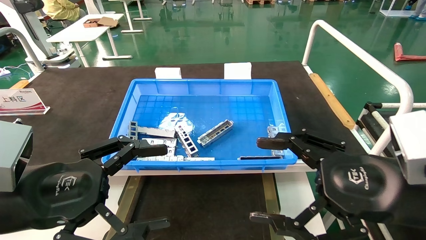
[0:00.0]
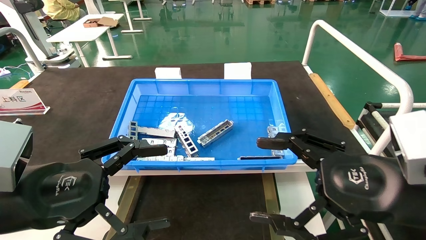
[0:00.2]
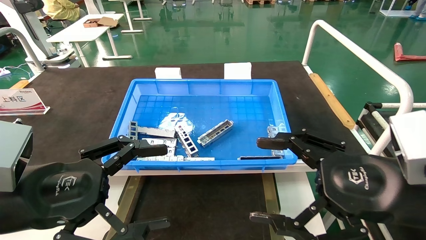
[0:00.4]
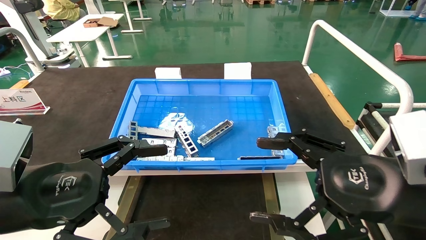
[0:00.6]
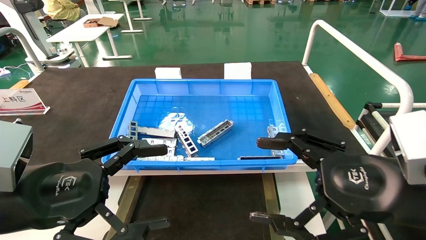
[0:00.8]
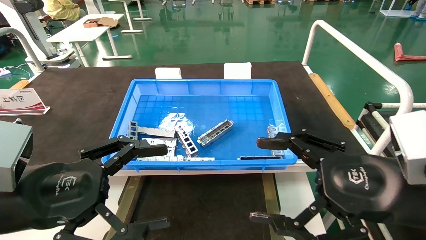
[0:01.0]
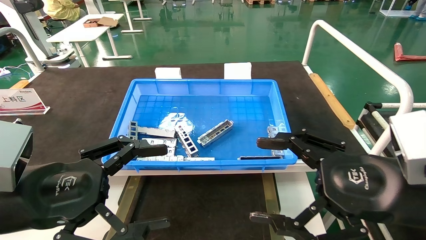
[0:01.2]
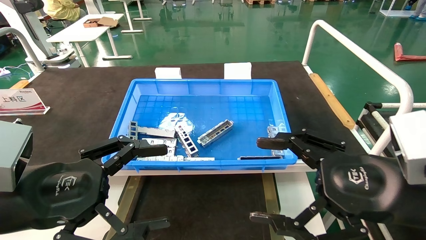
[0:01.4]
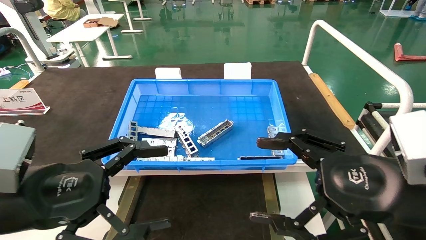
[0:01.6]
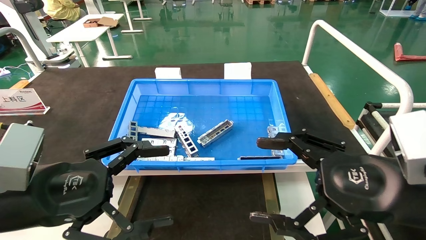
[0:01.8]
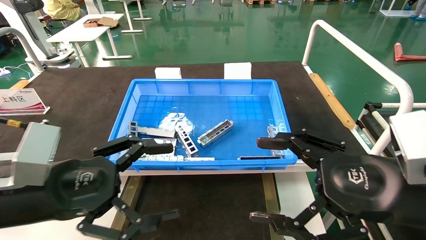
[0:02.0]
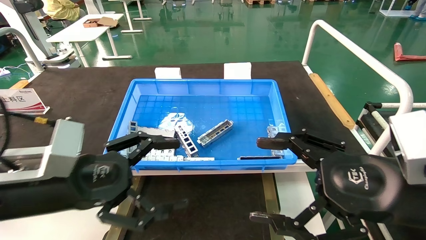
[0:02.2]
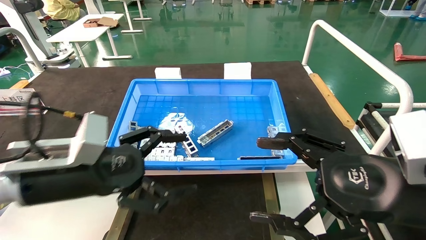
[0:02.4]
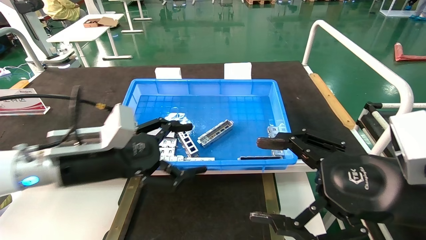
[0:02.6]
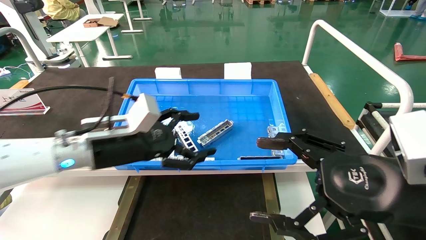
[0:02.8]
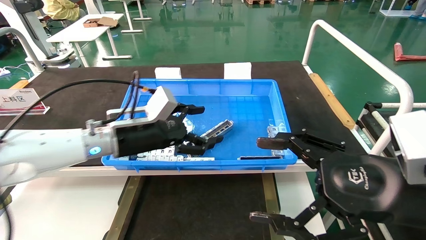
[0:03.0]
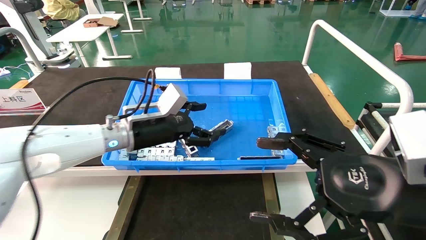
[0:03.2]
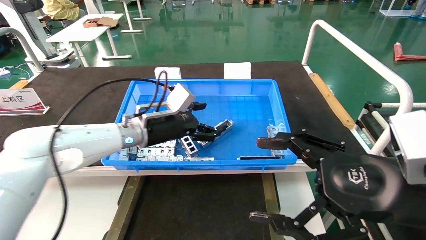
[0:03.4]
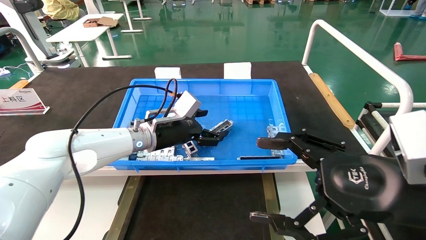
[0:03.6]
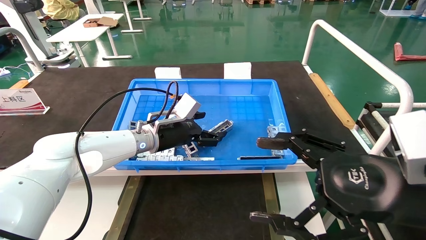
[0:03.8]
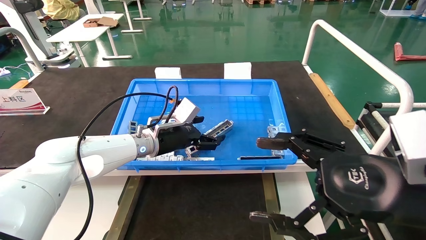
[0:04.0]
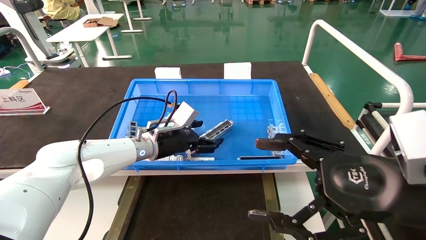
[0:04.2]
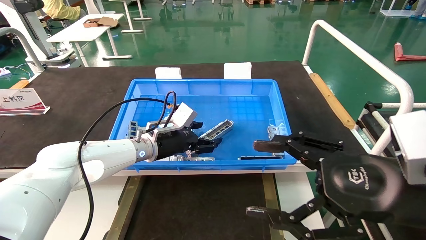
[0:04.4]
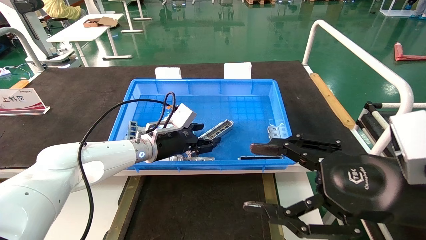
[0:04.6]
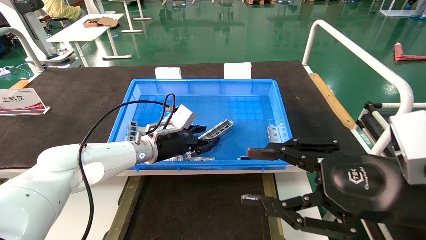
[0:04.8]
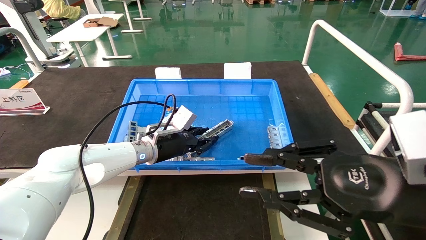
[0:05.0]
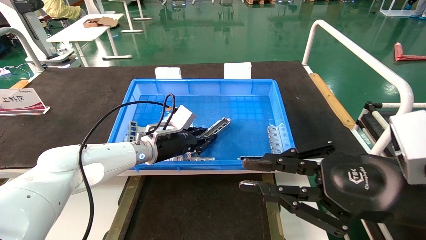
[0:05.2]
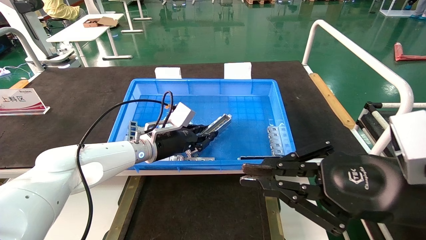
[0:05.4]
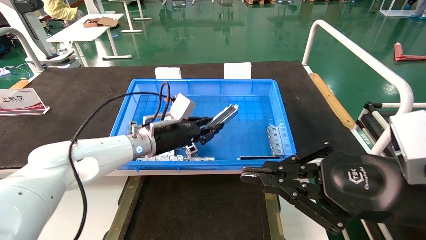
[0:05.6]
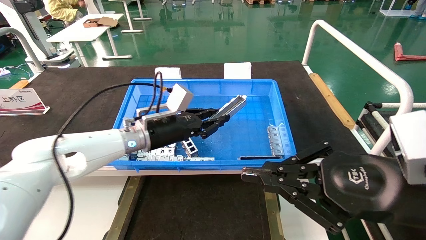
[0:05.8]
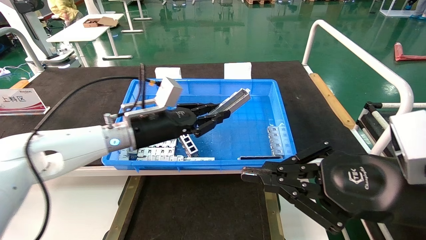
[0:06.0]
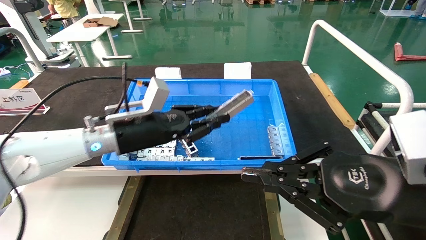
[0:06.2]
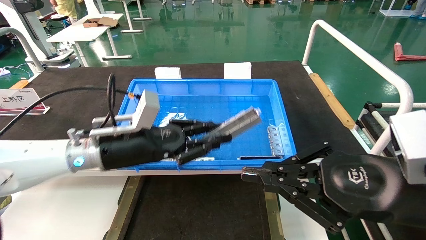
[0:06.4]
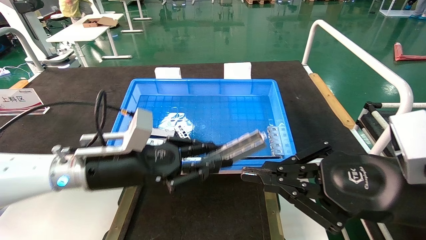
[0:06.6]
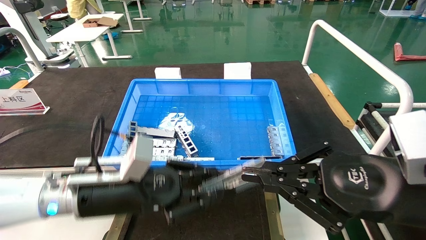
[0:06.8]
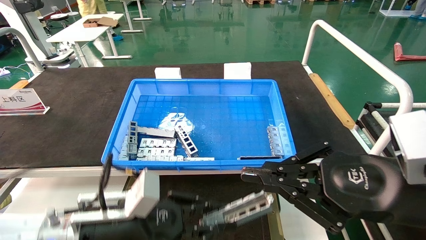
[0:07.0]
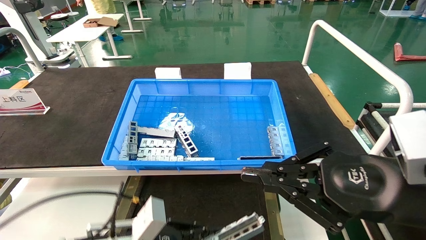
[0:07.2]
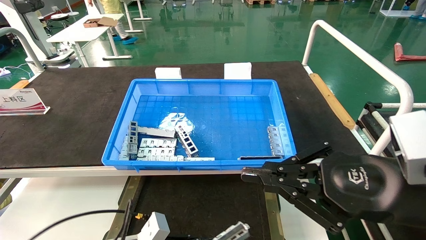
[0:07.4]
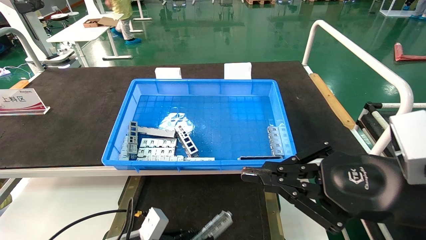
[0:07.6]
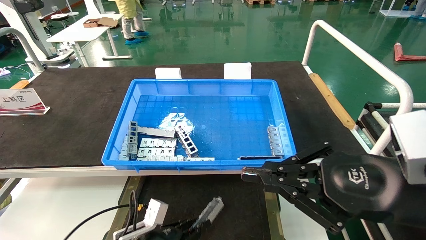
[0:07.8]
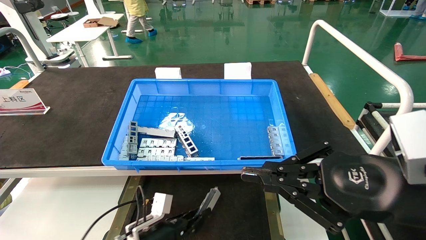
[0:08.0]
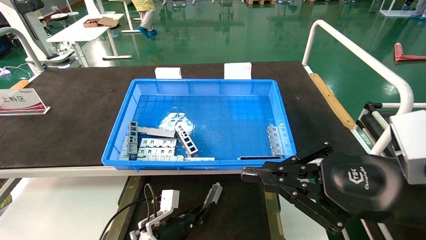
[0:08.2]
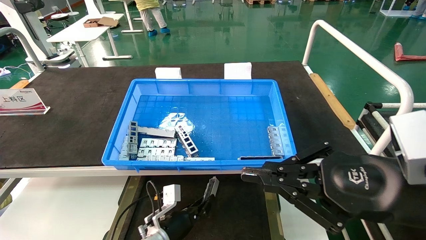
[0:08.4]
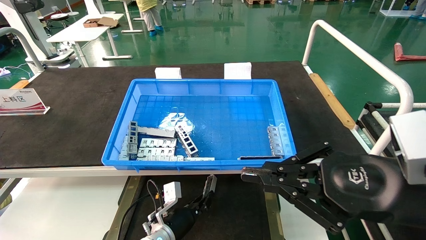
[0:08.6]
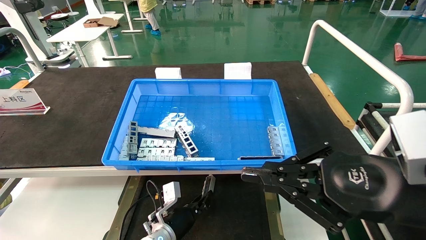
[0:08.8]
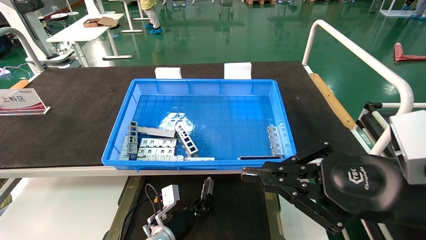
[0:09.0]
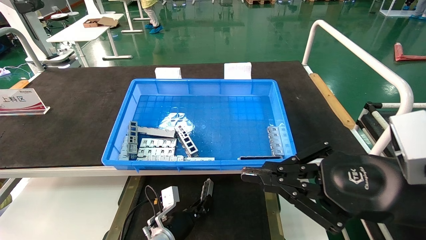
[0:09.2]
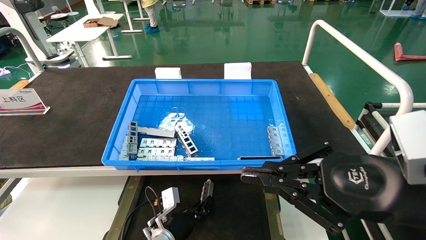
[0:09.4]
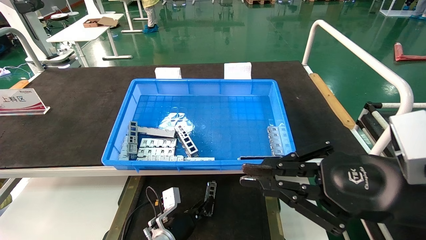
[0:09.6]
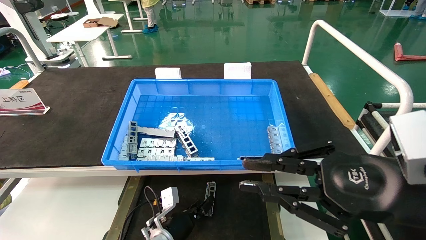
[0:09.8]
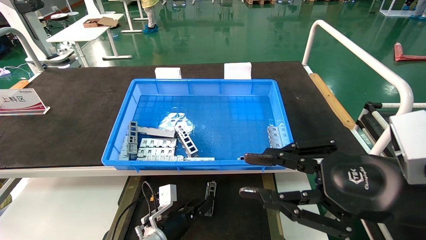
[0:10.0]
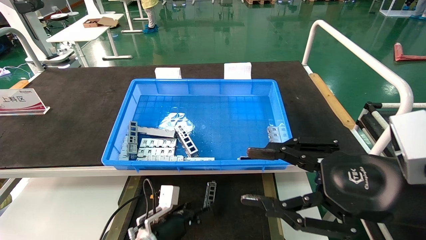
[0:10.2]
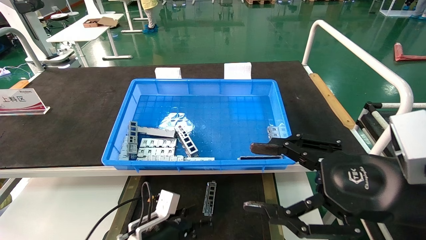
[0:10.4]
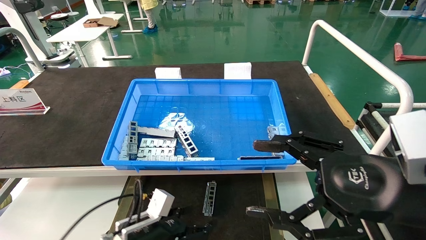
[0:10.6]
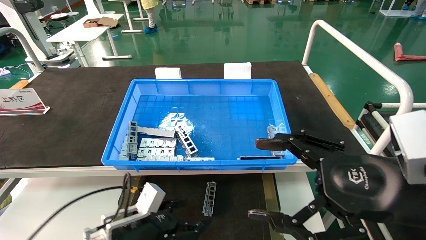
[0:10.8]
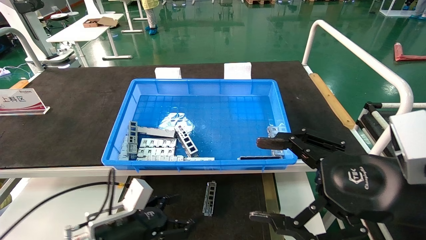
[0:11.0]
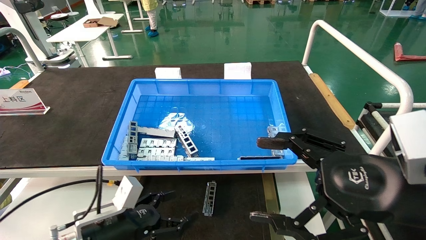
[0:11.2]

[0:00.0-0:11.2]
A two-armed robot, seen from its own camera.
Task of the whole recording: Grasp the part with one hand and place it on the black container.
Step, 0:02.0 to 0:05.2: Pick up the front USB bracket from the feeding area.
Step, 0:05.4 to 0:09.6: Place the front USB bracket into the box.
0:00.0 to 0:01.6: Neither gripper changes place.
0:01.6 to 0:03.2: The left gripper goes approximately 25 cm forward and to the right.
0:03.2 to 0:04.8: The left gripper is displaced downward and forward by roughly 10 cm, and closes up, while the right gripper closes its fingers.
0:04.8 to 0:06.4: The right gripper closes, while the left gripper travels backward and upward by some 15 cm, and closes its fingers.
0:06.4 to 0:08.0: The left gripper shifts approximately 25 cm downward.
0:08.0 to 0:09.6: The left gripper shifts by about 5 cm.
0:09.6 to 0:11.2: The left gripper heads upward, backward and to the left, covering approximately 20 cm, and opens; the right gripper opens its fingers.
